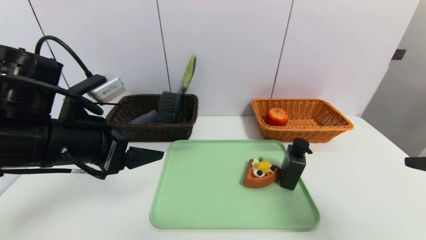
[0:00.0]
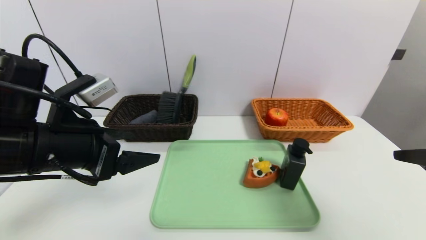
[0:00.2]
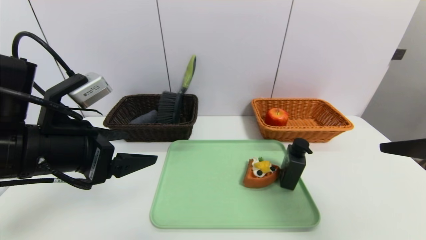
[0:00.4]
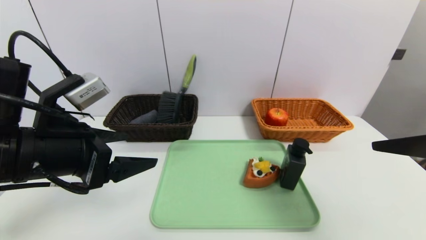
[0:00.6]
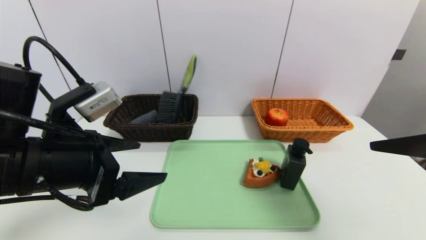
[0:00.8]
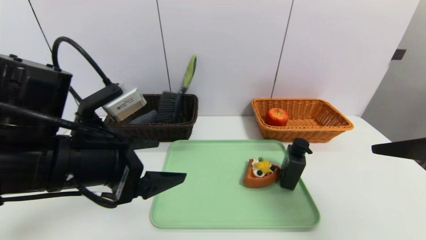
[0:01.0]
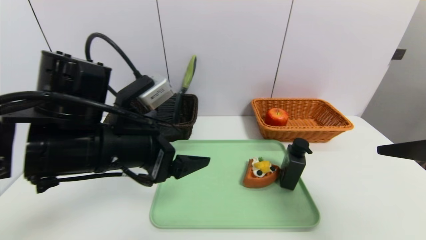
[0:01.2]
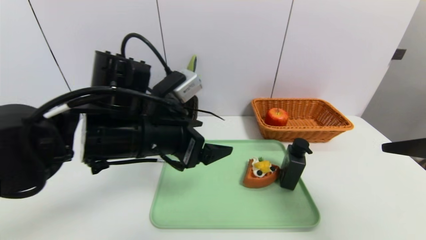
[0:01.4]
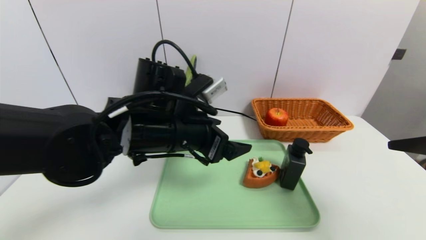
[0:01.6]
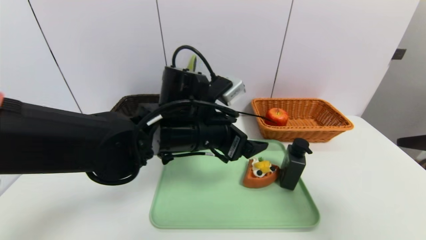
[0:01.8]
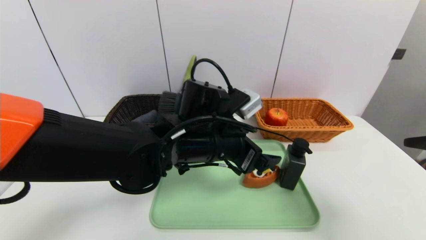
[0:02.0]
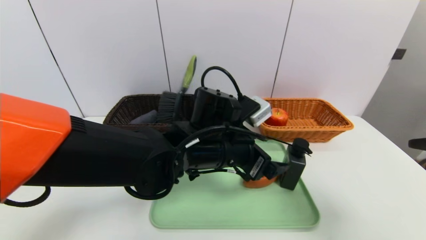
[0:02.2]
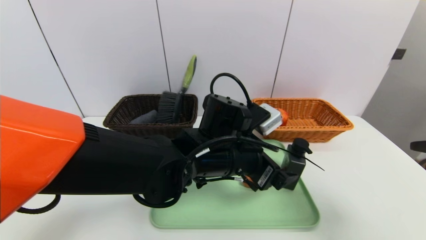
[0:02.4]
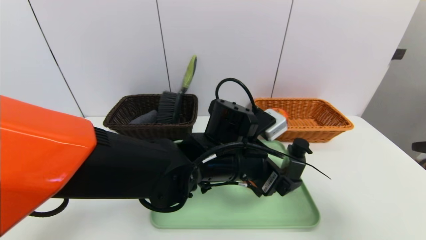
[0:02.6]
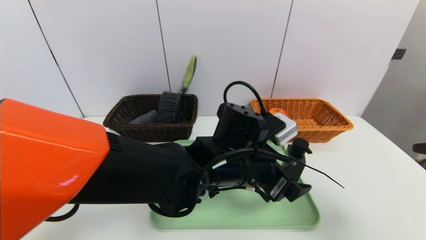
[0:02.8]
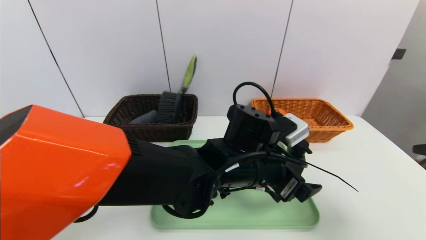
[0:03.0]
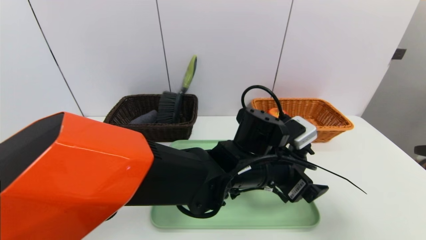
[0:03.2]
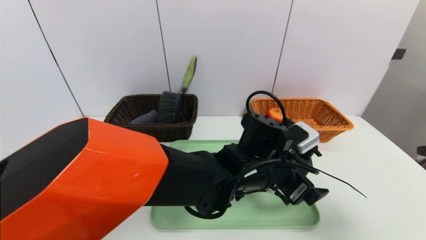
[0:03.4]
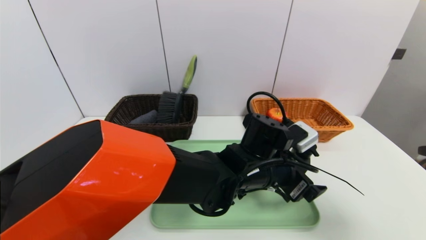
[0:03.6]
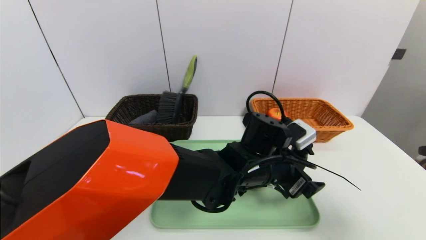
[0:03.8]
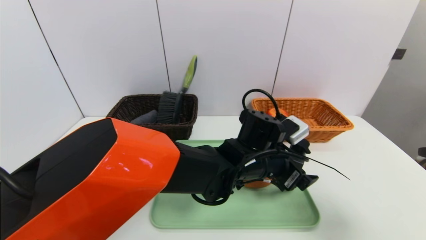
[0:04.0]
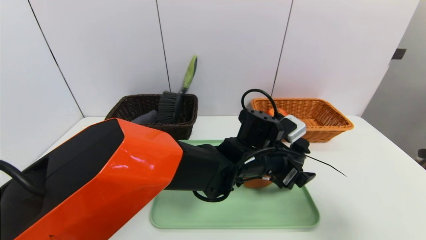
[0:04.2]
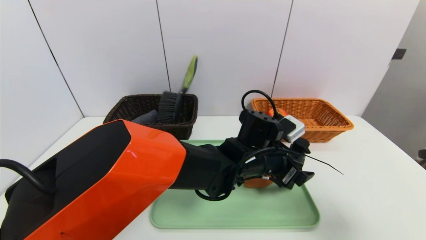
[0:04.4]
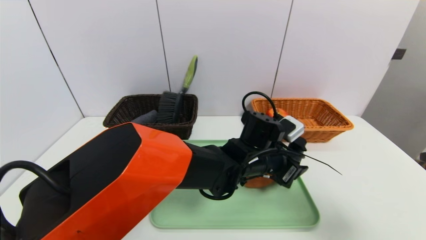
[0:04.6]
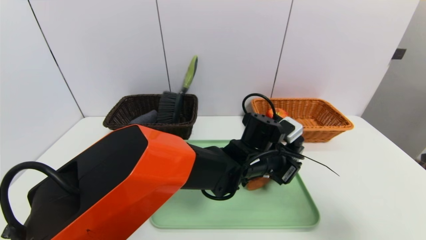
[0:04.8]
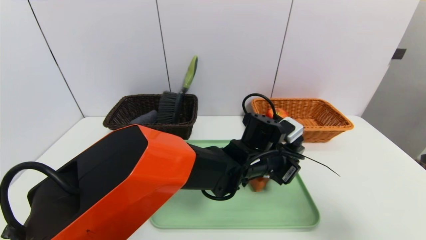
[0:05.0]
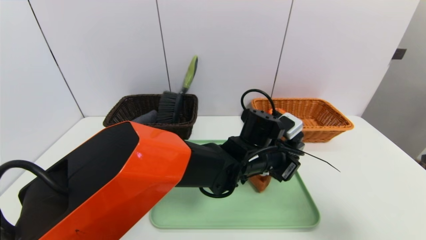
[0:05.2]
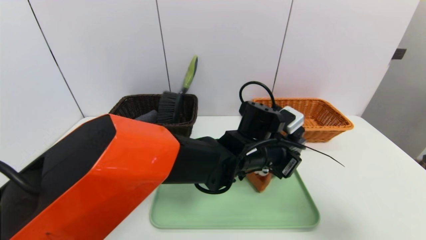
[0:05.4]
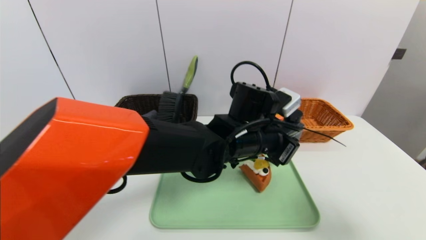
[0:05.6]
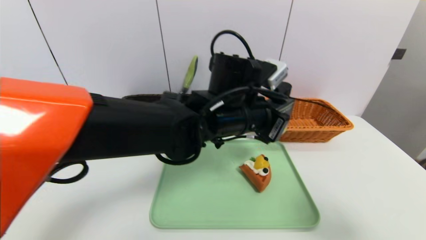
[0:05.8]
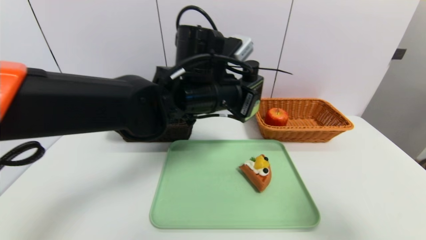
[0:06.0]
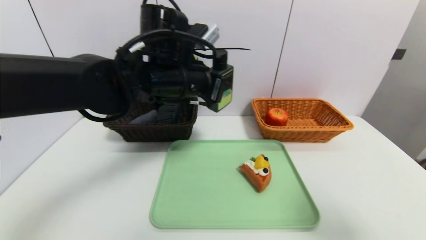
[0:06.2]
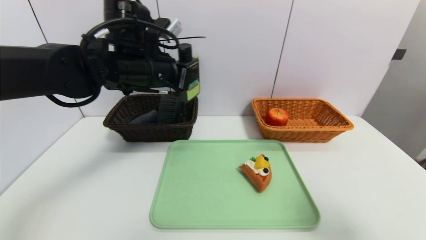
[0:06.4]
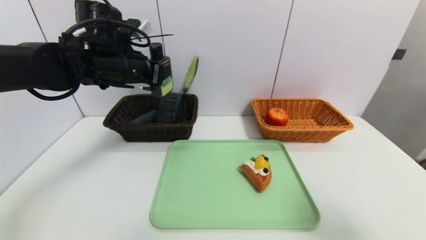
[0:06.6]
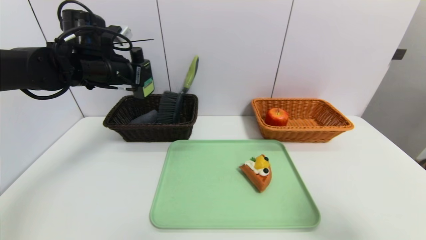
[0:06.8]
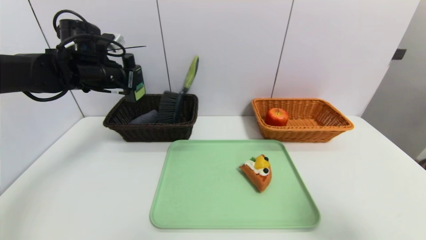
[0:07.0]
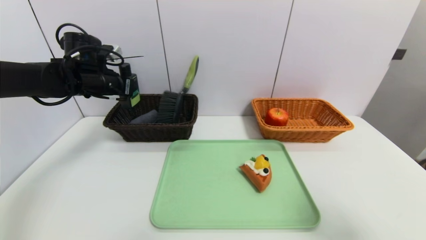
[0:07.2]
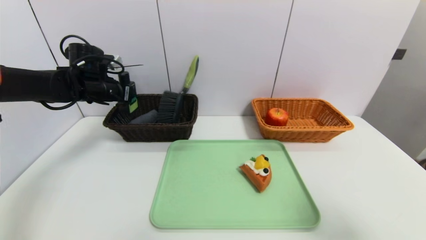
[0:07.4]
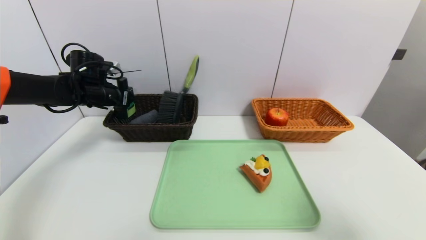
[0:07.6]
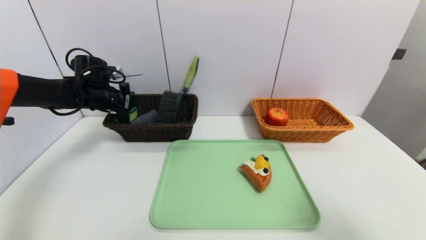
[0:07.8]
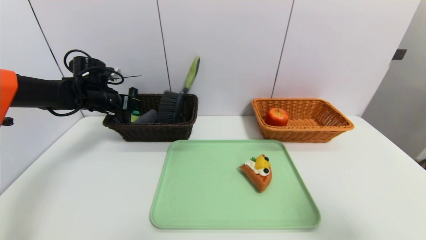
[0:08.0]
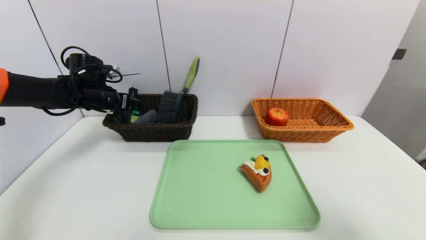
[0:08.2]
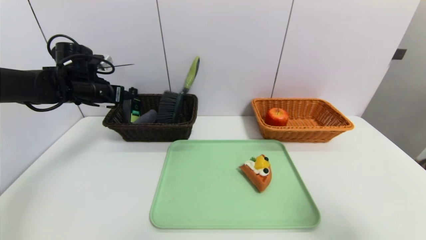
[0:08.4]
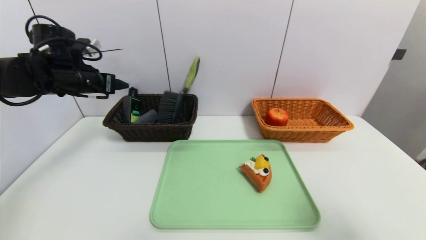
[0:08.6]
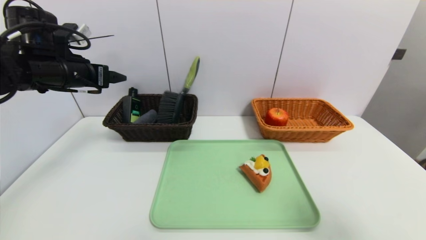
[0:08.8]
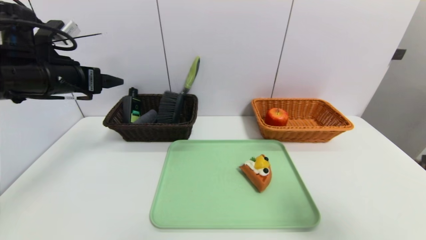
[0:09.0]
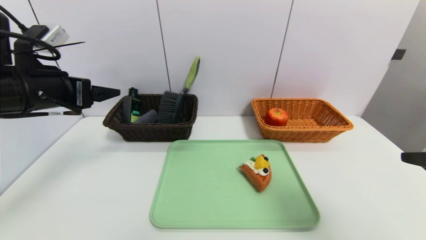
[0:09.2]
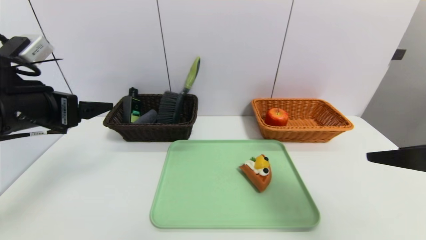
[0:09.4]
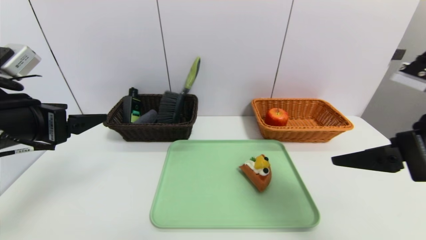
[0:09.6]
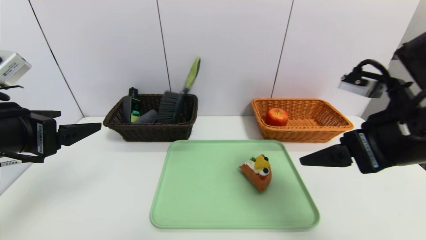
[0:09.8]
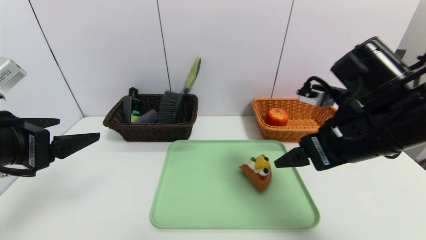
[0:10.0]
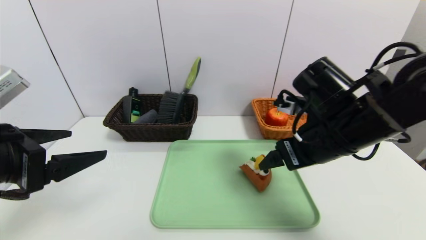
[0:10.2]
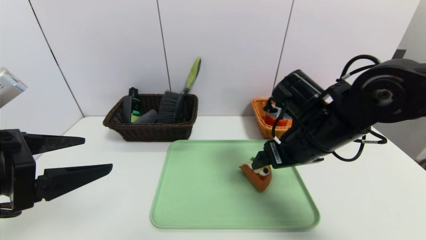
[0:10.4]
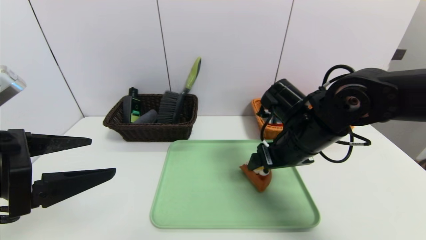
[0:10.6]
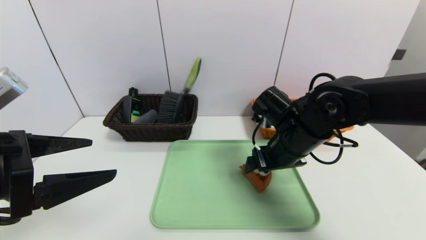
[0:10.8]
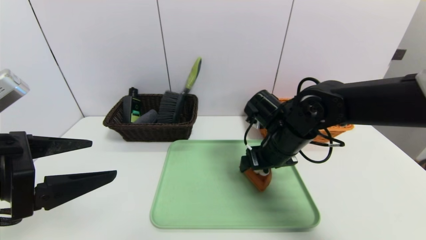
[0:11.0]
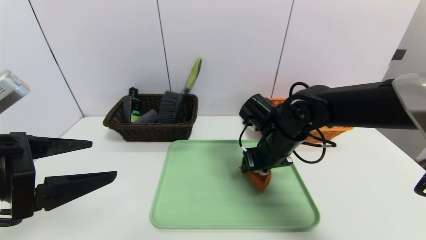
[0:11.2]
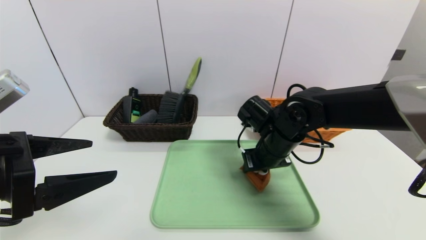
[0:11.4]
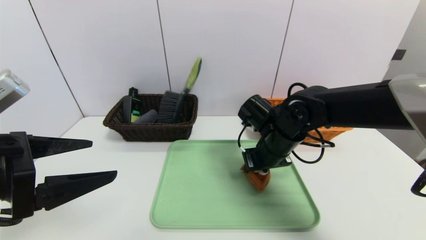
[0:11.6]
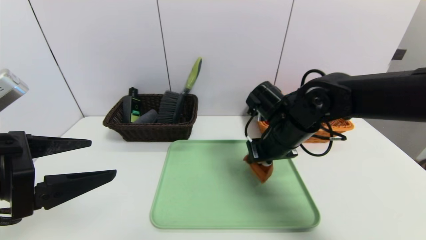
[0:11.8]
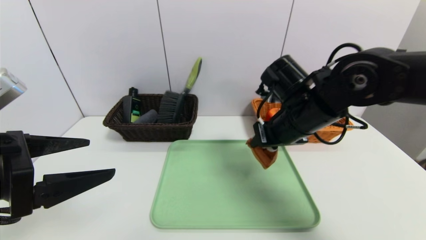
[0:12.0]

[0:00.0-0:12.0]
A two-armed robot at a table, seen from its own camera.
Task of the whole recording: place the food in the right basket with the right gripper, and place the non food items in the left basket with the left gripper.
Step, 0:00.0 to 0:08.4: Grasp the hard cleanser and put it in the left basket.
0:00.0 to 0:01.6: The left gripper shifts some 15 cm to the right.
0:01.6 to 0:03.0: The left gripper shifts roughly 15 cm to the right and downward.
0:03.0 to 0:04.4: The left gripper shifts by about 5 cm.
0:04.4 to 0:06.0: The left gripper moves upward and to the left, about 20 cm, and closes up.
0:06.0 to 0:07.6: The left gripper goes about 30 cm to the left and forward.
0:07.6 to 0:09.0: The left gripper moves backward and upward, about 15 cm, and opens.
0:09.0 to 0:10.4: The right gripper travels forward, to the left and downward by approximately 25 cm; the left gripper travels backward by approximately 15 cm.
0:10.4 to 0:12.0: The right gripper goes downward and returns, about 5 cm each way, and closes its fingers.

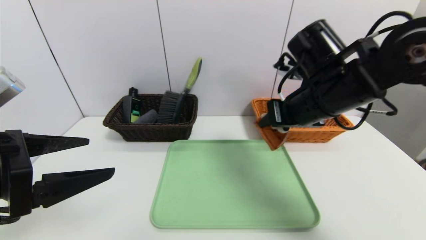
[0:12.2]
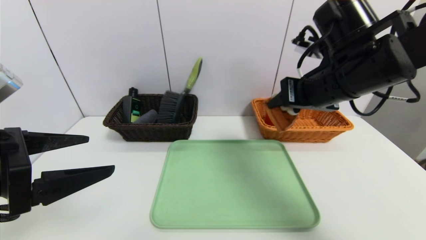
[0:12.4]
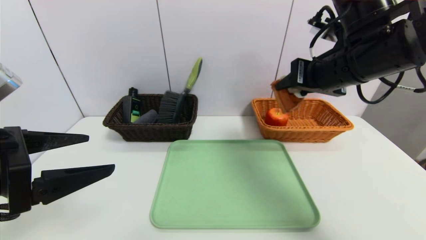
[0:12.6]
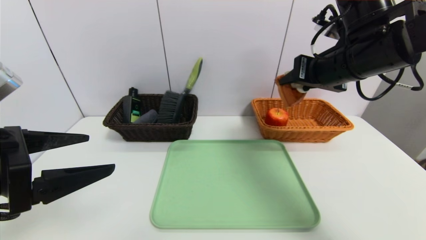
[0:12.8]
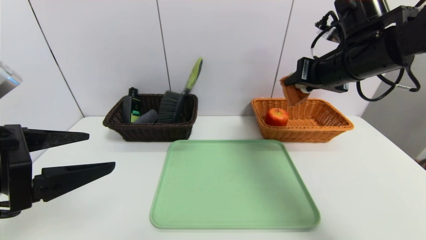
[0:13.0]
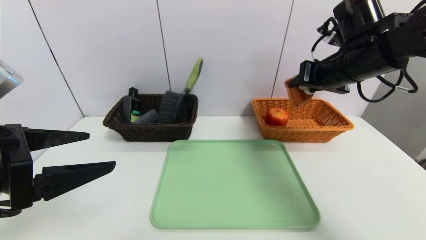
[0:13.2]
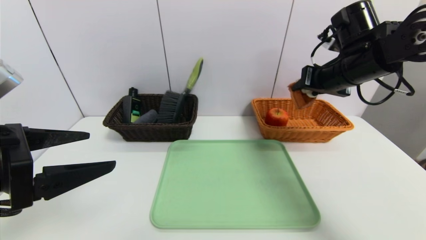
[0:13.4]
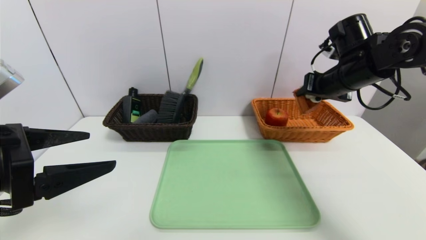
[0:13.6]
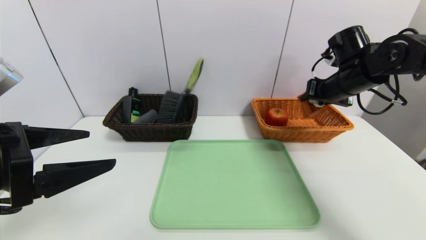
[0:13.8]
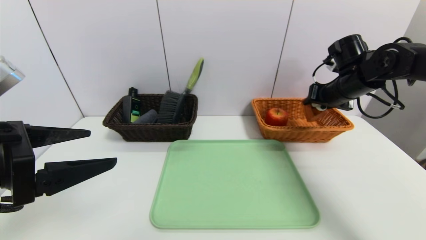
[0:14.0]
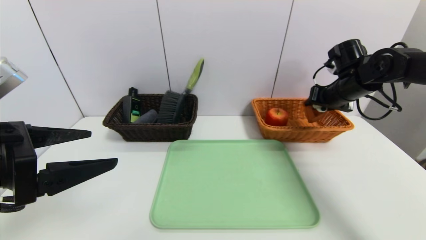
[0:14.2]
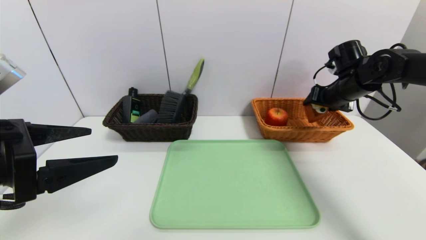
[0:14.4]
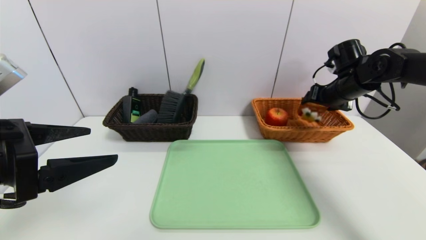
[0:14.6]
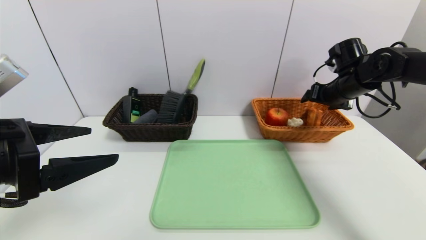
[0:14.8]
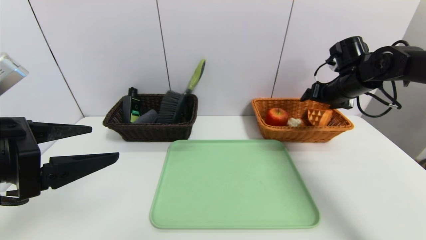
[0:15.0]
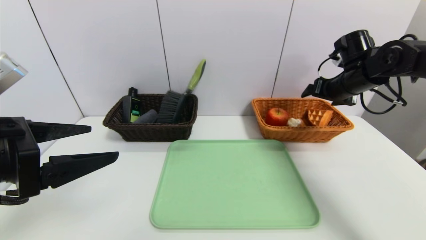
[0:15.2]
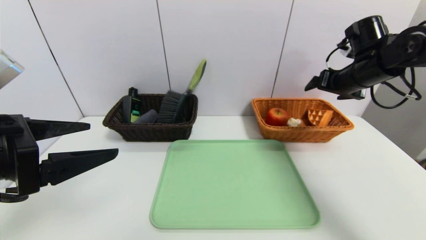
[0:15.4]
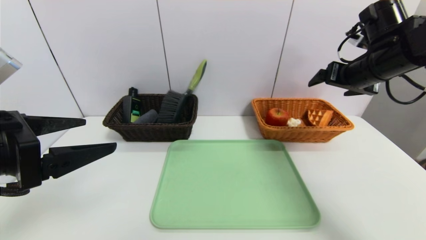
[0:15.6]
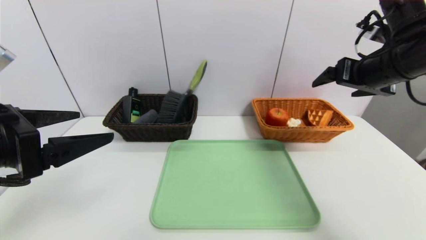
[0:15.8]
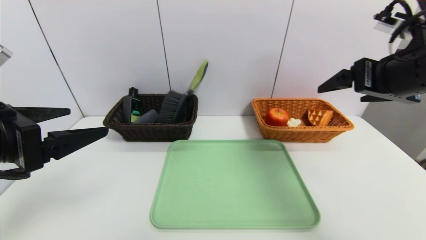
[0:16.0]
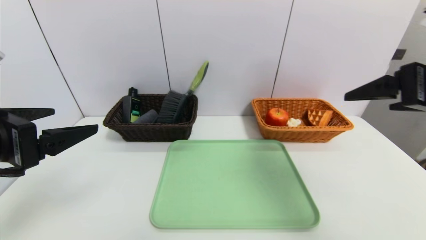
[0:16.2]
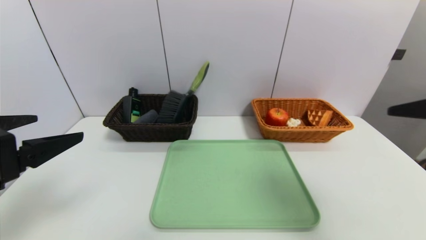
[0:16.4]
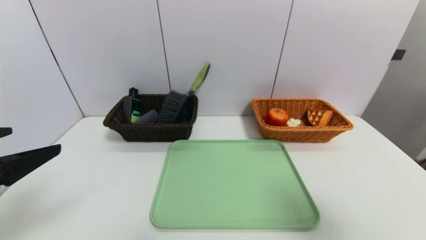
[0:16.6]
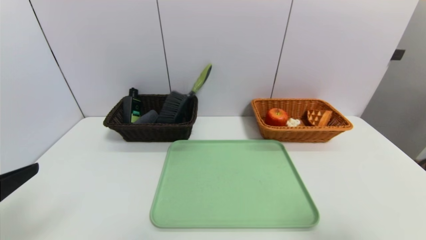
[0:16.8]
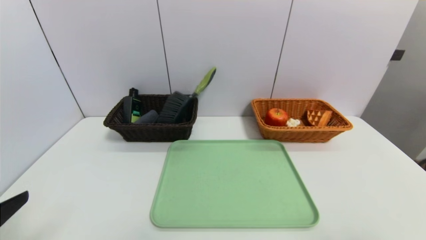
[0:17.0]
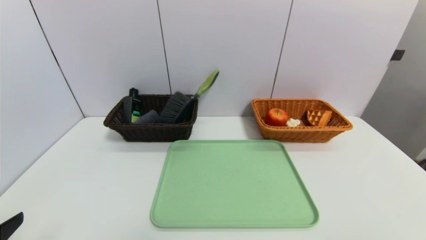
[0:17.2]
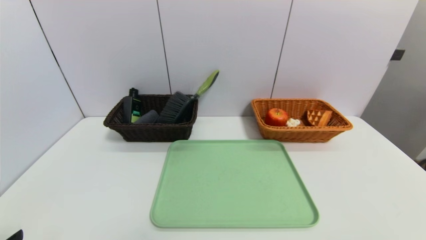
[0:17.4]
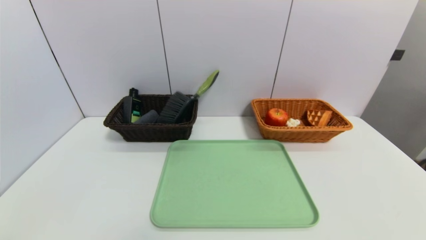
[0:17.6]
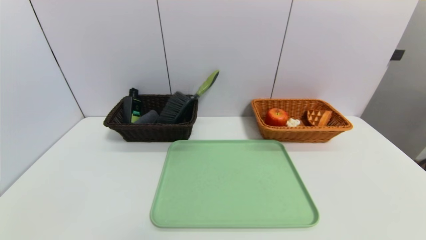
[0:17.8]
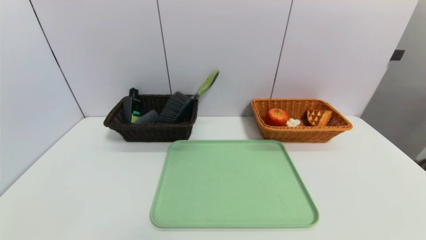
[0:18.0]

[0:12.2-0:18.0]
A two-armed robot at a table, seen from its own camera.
Task of the whole recording: place the food in the right basket with the right gripper, and place the non food items in the left basket with the left gripper.
Step, 0:12.2 to 0:15.0: Grasp the waffle and put it in the right basket.
0:12.2 to 0:13.6: The right gripper heads to the right and forward, covering about 15 cm.
0:13.6 to 0:15.0: The right gripper ends up roughly 10 cm from where it was, and opens.
0:15.0 to 0:16.6: The left gripper shifts by roughly 5 cm. The right gripper moves backward, roughly 35 cm.
0:16.6 to 0:18.0: The right gripper goes roughly 15 cm backward and downward; the left gripper heads downward and backward, covering approximately 20 cm.
